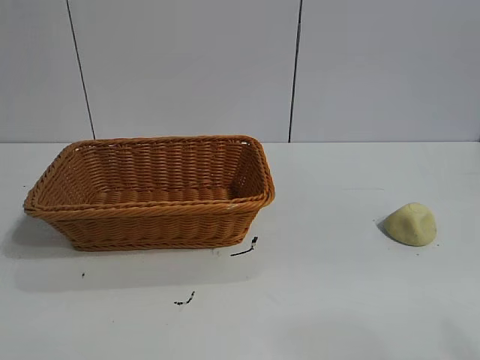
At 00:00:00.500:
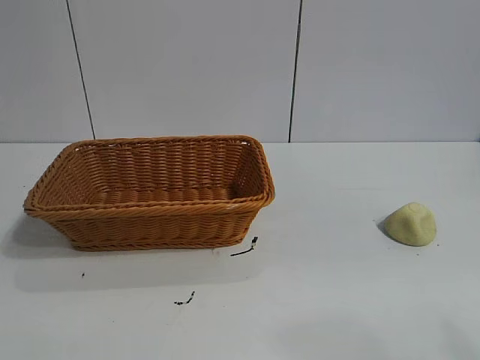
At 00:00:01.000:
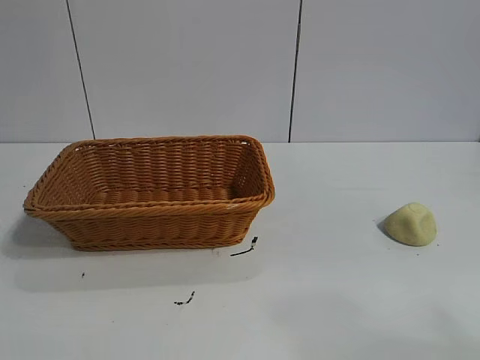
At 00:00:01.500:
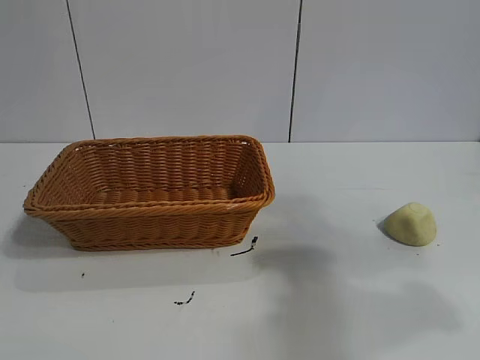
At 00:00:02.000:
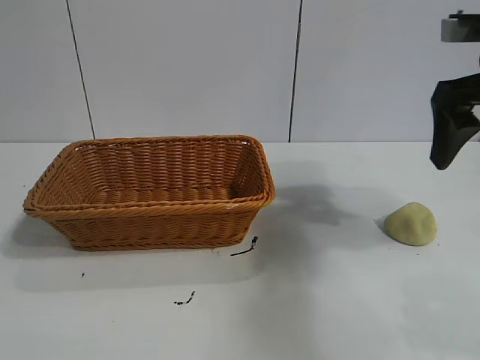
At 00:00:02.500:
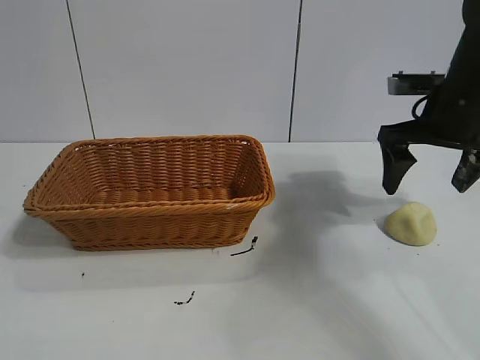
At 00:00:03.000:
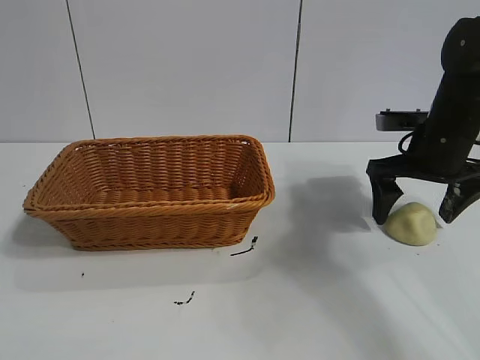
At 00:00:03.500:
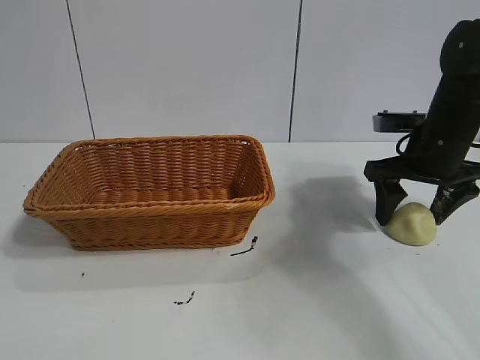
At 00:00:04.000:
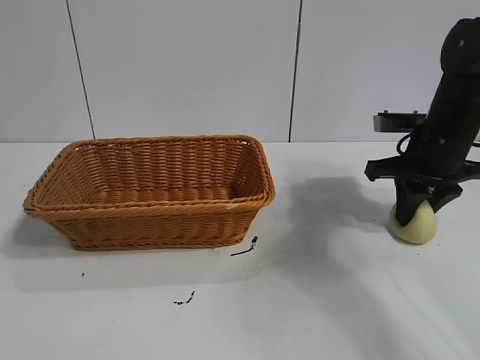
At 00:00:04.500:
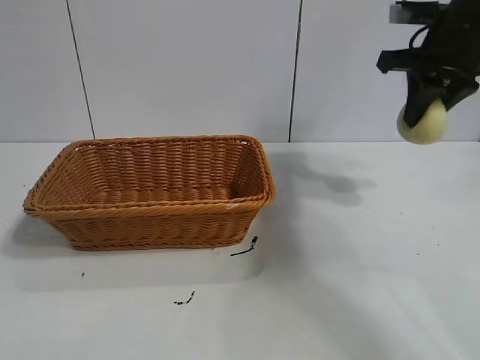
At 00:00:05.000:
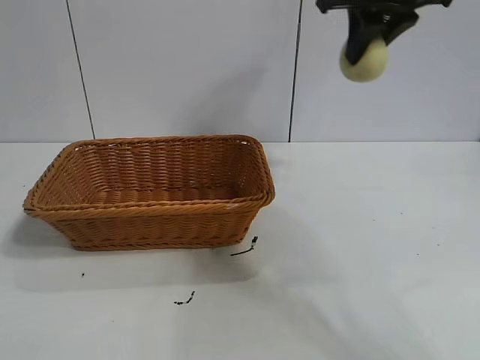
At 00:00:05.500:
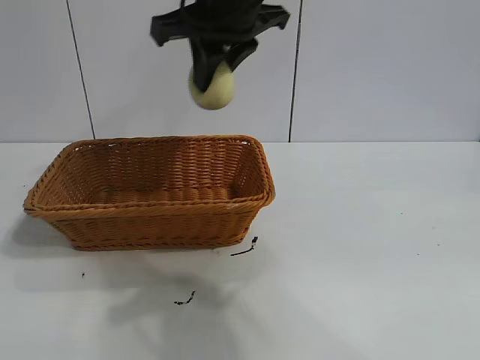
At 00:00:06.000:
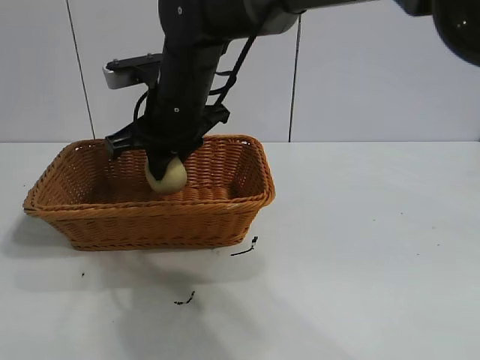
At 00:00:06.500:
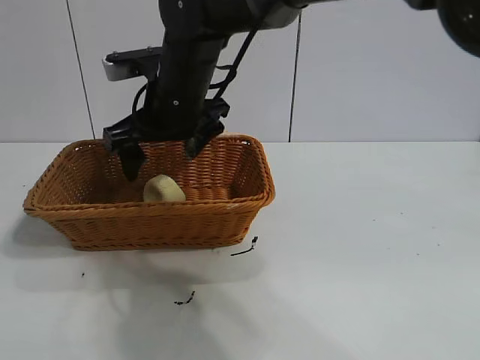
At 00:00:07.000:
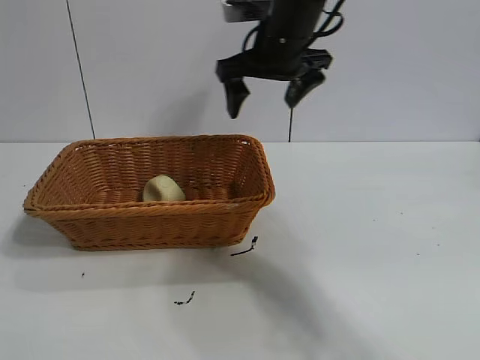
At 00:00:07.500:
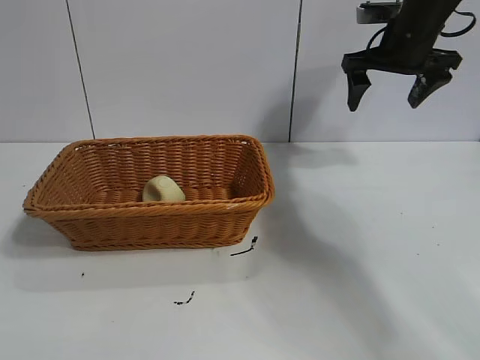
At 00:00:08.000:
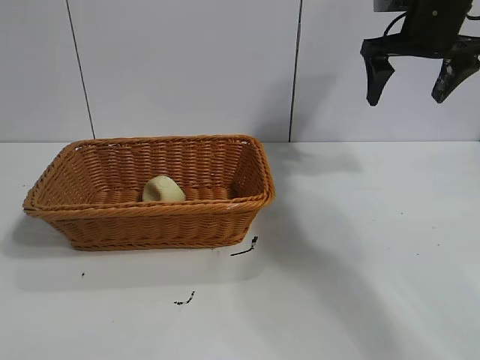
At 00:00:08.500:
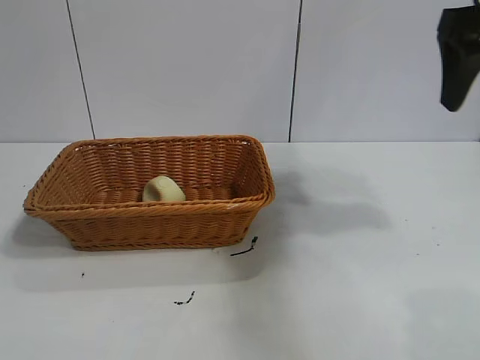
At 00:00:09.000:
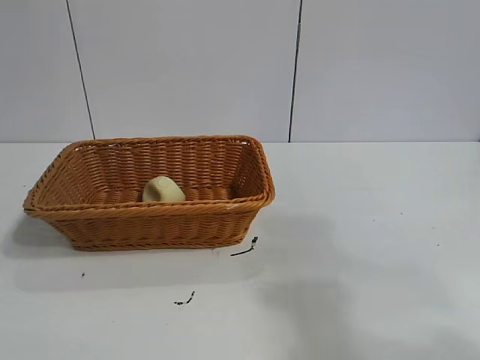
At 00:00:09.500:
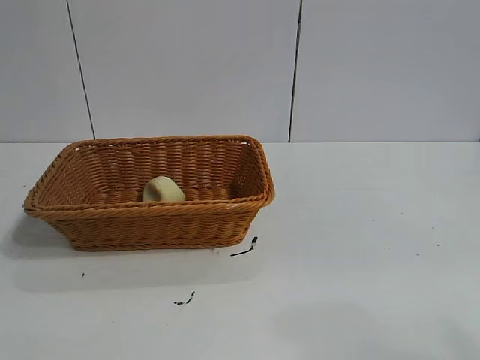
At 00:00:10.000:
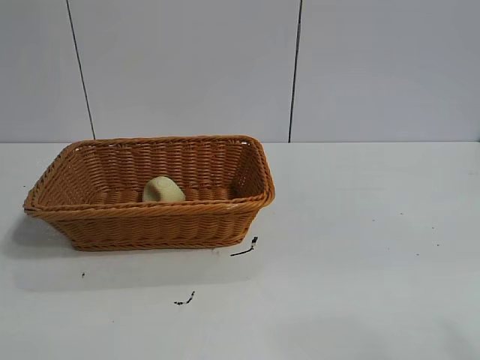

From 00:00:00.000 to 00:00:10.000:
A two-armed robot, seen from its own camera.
Task of the whole recording: pick up the egg yolk pastry and put it into the basket.
Step, from 00:00:01.000 to 00:00:03.500: Grasp egg yolk pastry with right gripper.
Step, from 00:00:04.000 to 00:00:06.000: Place the egg yolk pastry in the basket with right gripper.

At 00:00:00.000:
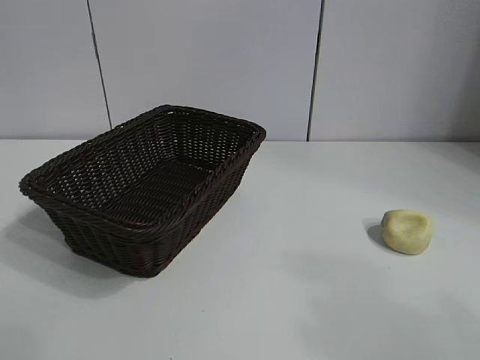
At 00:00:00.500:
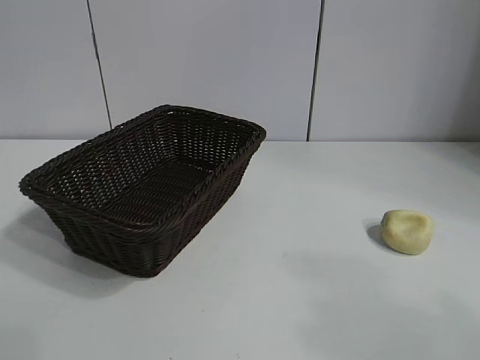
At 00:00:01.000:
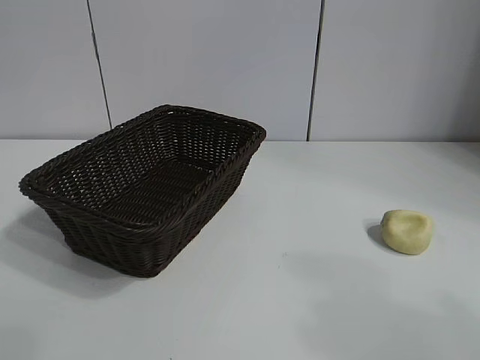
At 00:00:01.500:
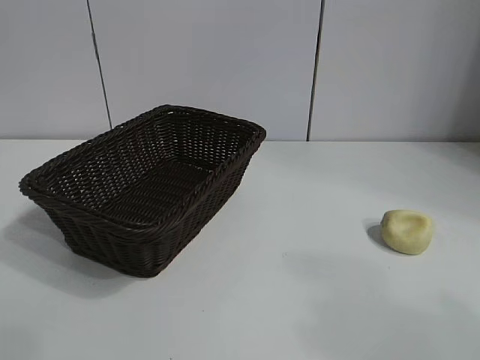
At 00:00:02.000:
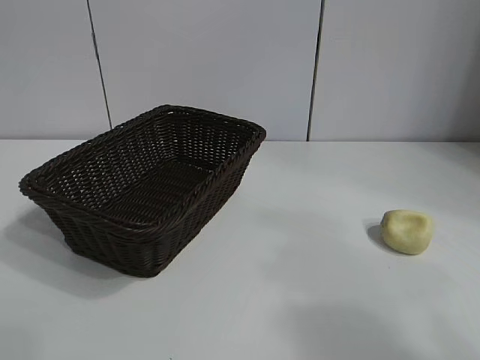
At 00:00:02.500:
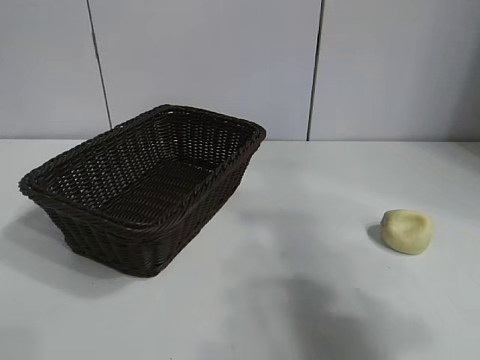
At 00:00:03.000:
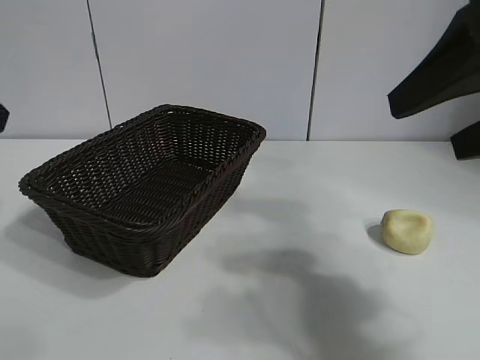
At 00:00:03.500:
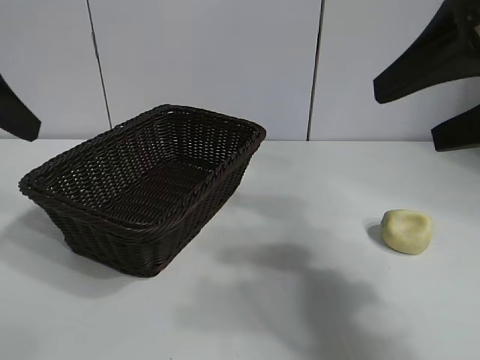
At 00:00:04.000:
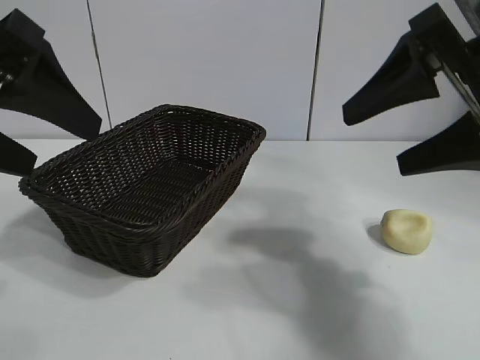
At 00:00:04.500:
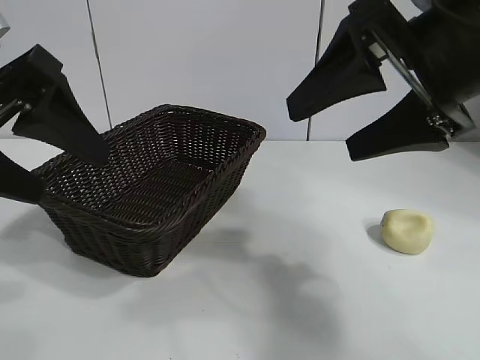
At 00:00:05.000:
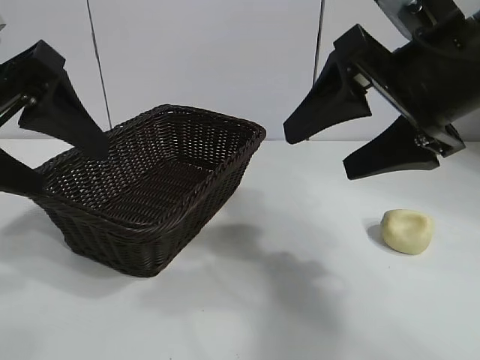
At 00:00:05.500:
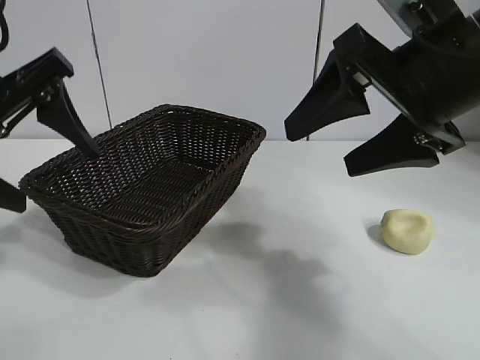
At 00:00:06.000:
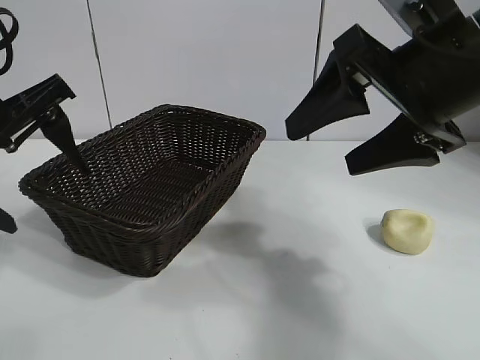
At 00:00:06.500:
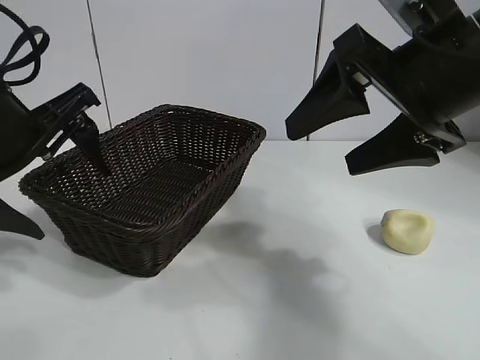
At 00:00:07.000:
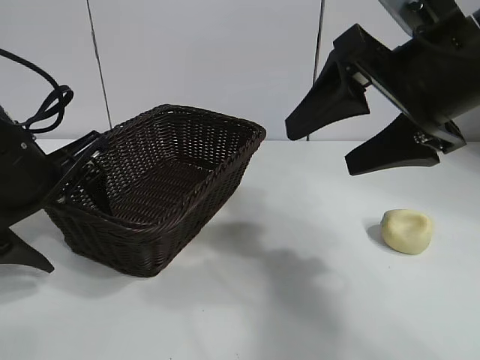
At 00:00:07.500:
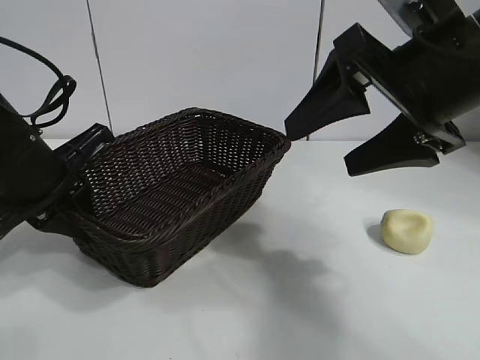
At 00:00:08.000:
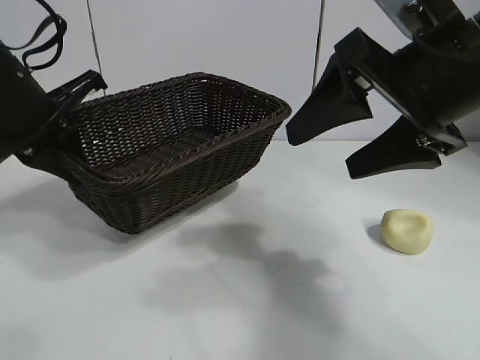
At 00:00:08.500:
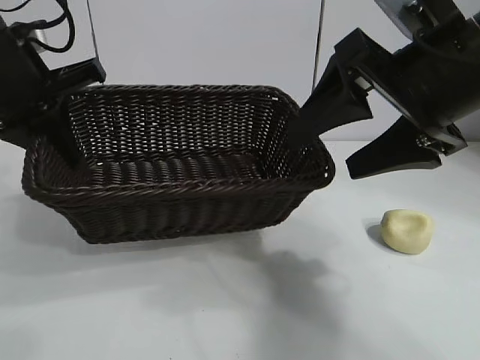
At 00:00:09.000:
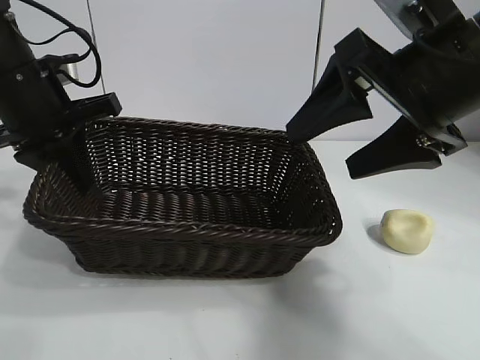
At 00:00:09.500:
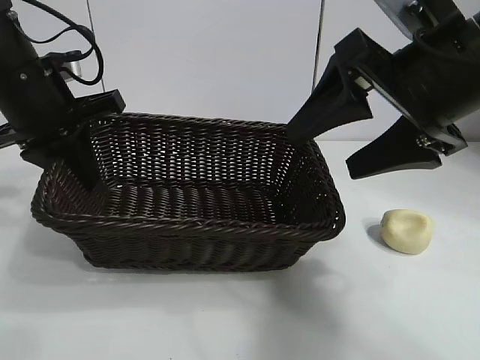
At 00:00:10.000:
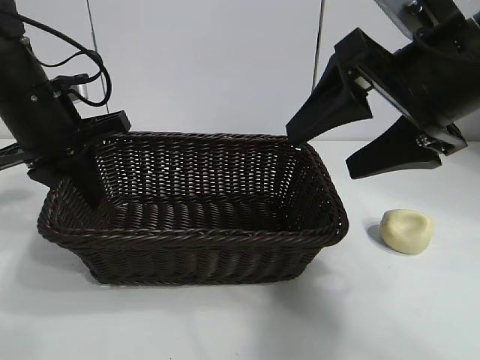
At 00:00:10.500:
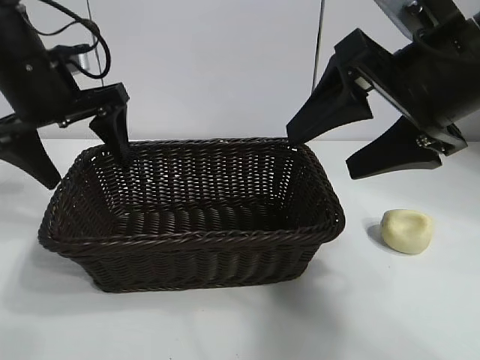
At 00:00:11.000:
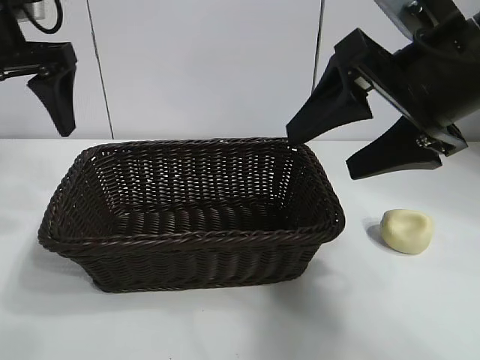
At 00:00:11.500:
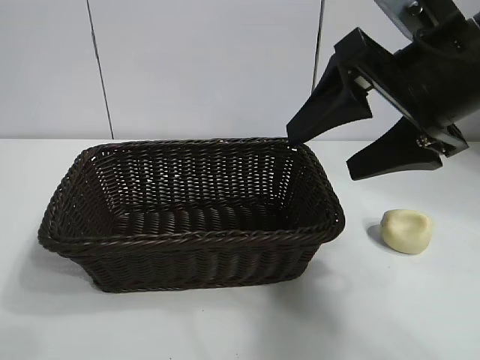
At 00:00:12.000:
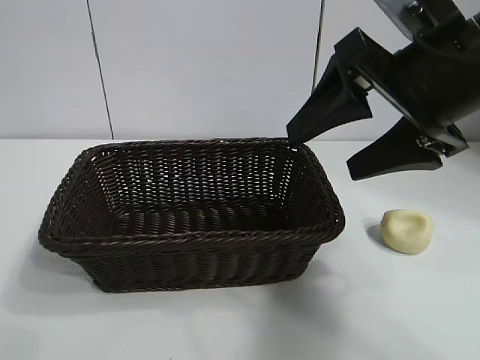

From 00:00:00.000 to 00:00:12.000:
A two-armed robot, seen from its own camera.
Task of the whole recording: pick up the egg yolk pastry and put it into the basket.
Step, from 00:00:02.000 to 00:00:07.000: Grasp the basket with left gripper.
Step, from 00:00:07.500 to 00:00:10.000: Place the basket in the center of view with left gripper.

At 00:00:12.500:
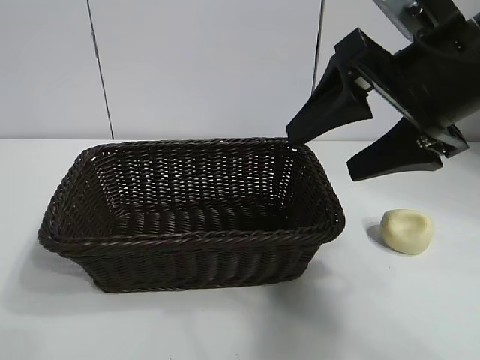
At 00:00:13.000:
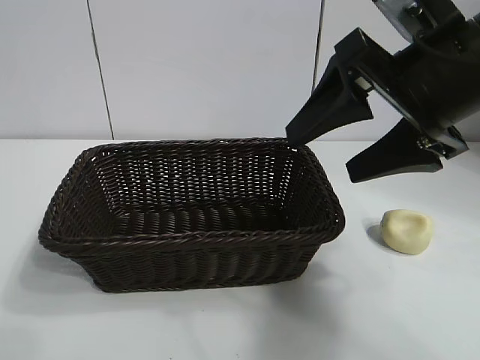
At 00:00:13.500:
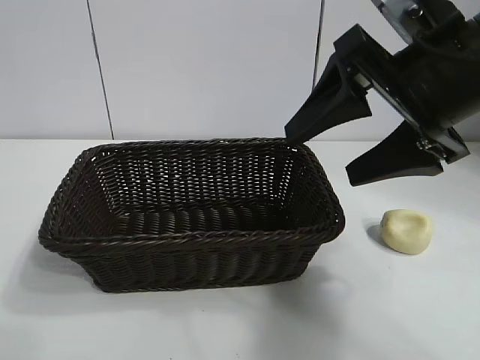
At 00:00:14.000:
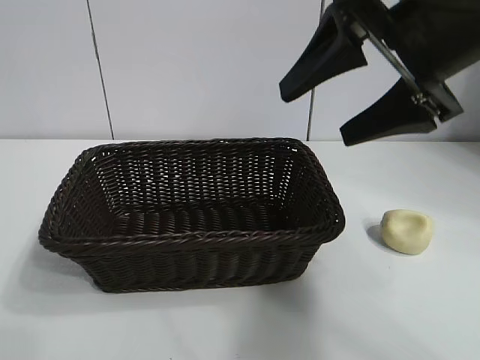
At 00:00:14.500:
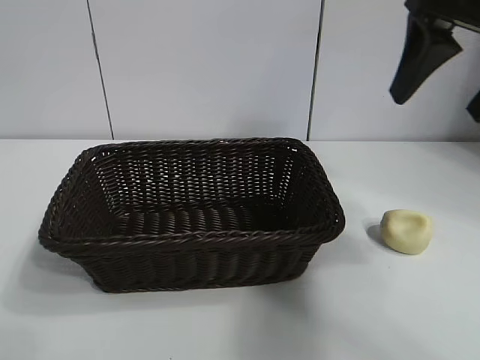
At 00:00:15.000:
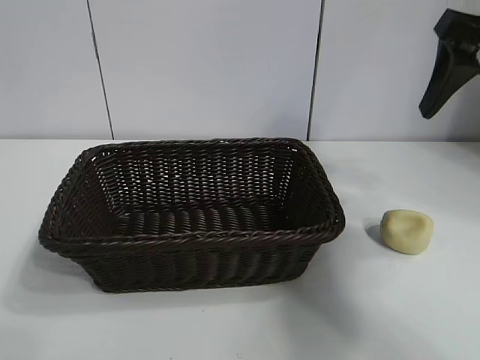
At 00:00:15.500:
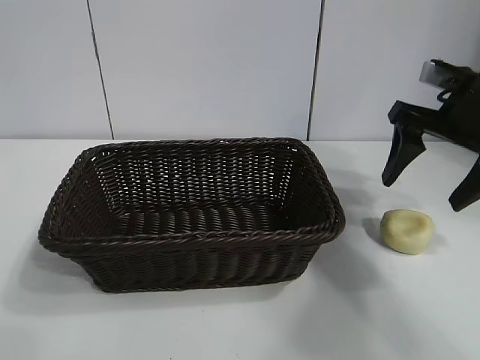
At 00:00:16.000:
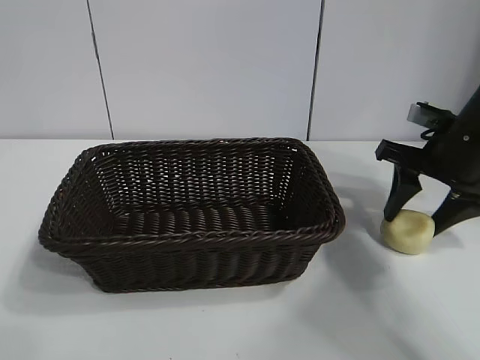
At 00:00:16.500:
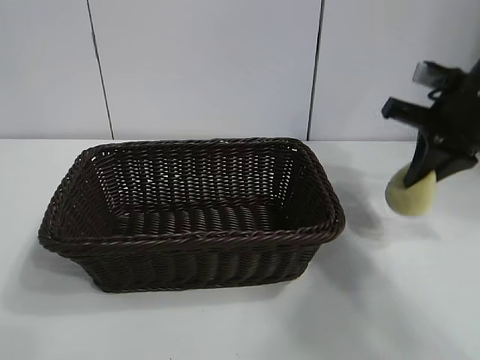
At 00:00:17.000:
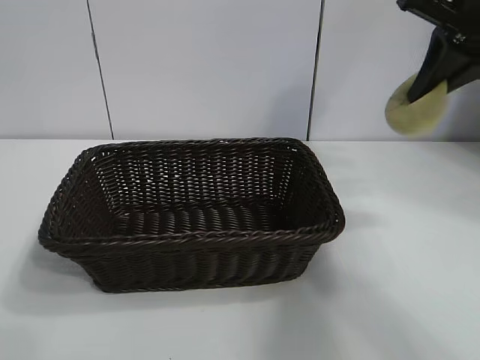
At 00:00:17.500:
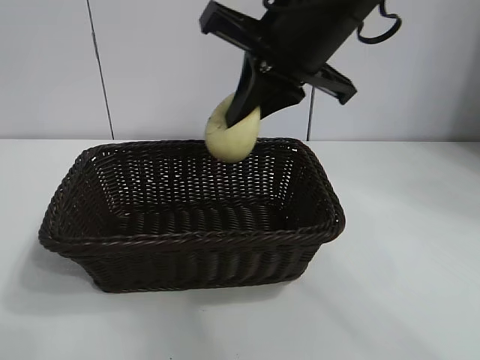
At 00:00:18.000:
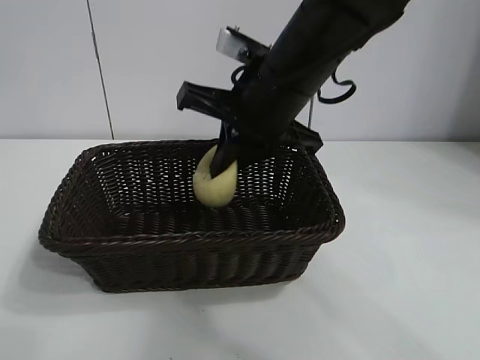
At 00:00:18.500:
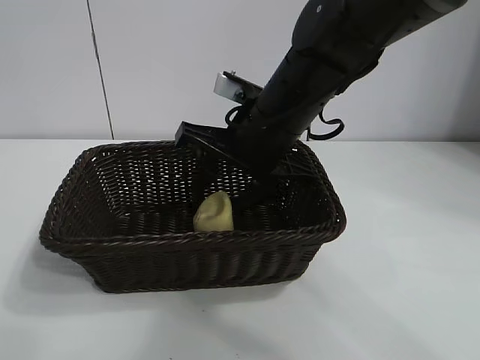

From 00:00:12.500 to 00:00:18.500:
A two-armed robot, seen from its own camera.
Task of the whole recording: pick up the egg yolk pastry and put it into the basket.
Step, from 00:00:12.500 to 00:00:16.000: Grasp egg yolk pastry with right gripper.
